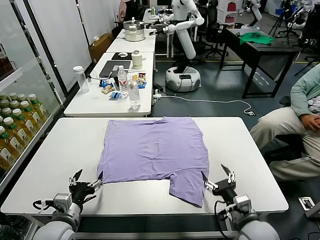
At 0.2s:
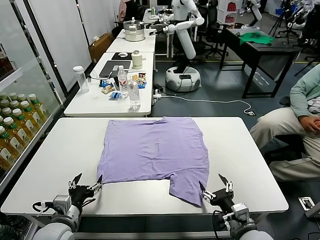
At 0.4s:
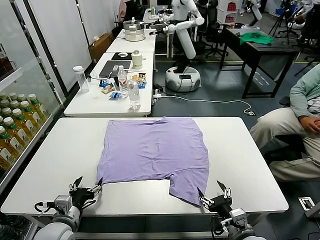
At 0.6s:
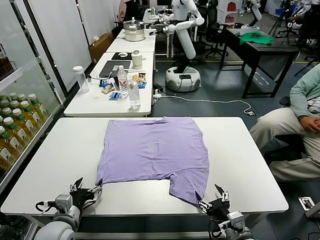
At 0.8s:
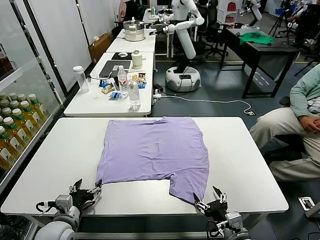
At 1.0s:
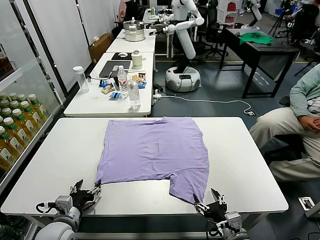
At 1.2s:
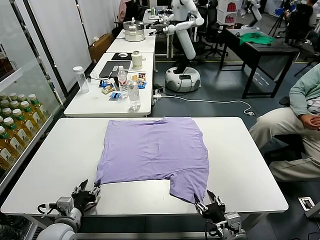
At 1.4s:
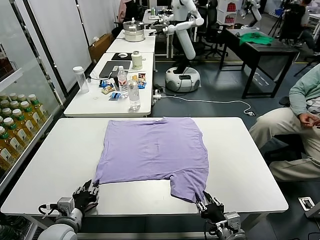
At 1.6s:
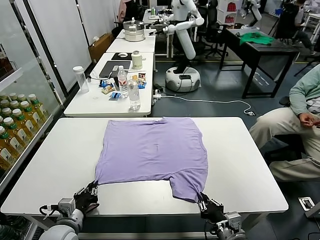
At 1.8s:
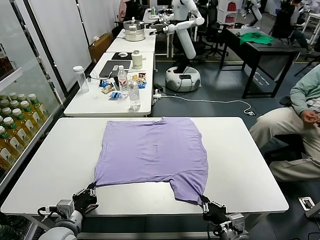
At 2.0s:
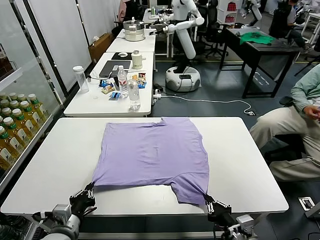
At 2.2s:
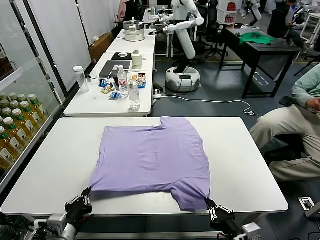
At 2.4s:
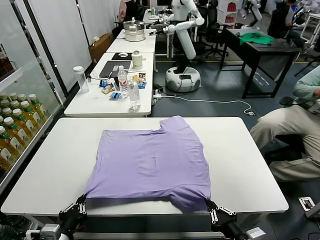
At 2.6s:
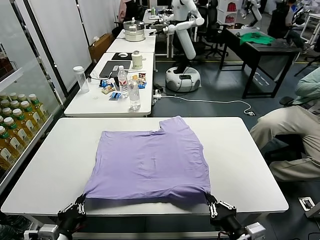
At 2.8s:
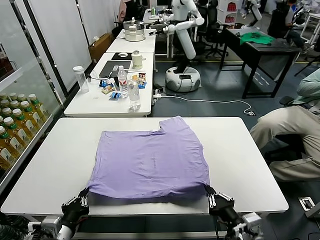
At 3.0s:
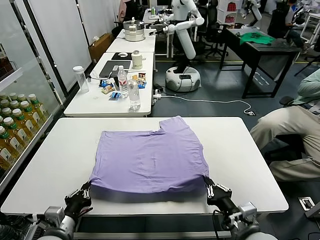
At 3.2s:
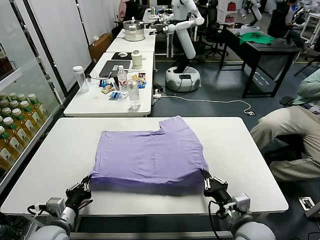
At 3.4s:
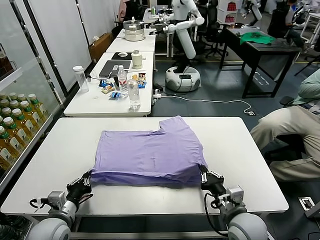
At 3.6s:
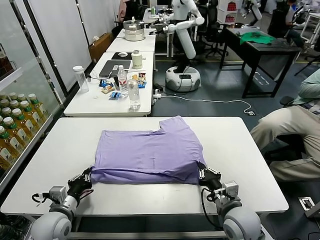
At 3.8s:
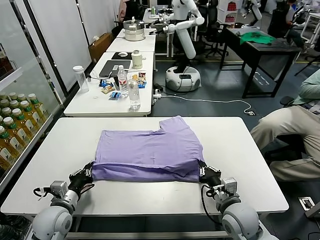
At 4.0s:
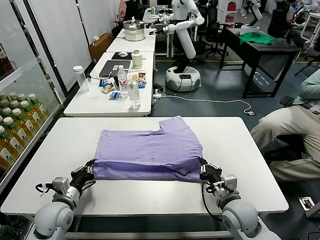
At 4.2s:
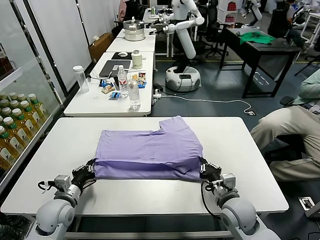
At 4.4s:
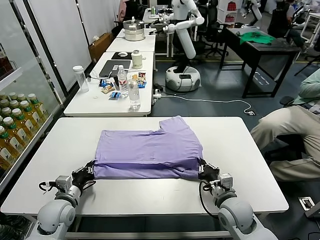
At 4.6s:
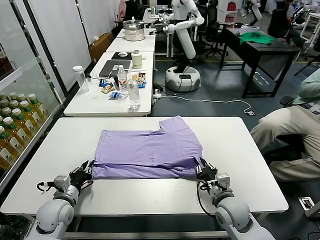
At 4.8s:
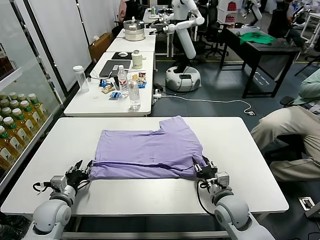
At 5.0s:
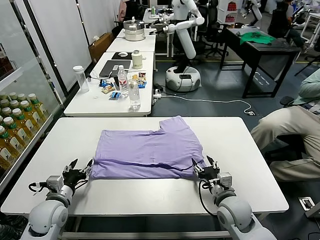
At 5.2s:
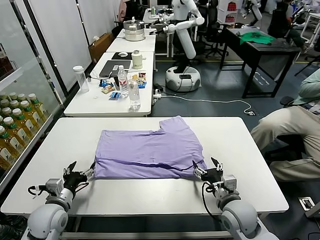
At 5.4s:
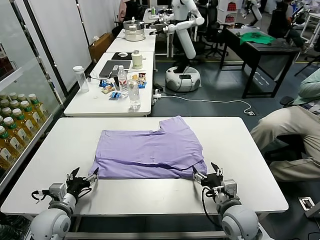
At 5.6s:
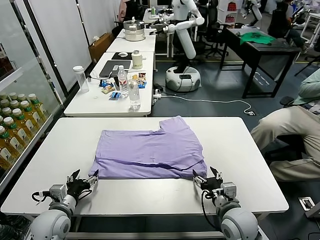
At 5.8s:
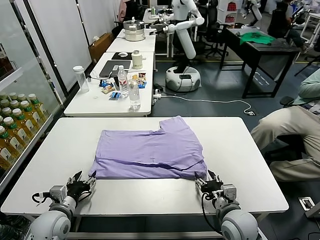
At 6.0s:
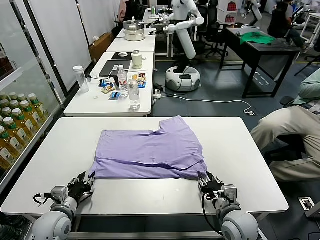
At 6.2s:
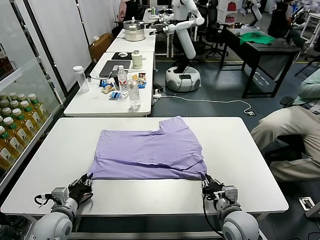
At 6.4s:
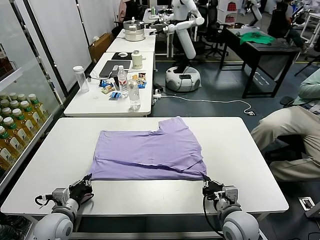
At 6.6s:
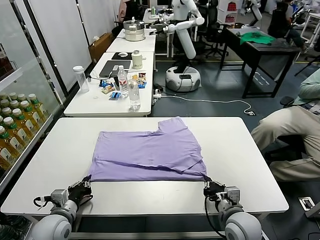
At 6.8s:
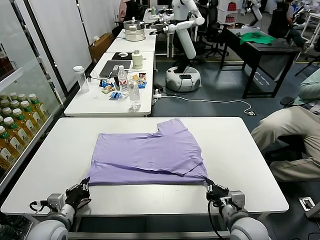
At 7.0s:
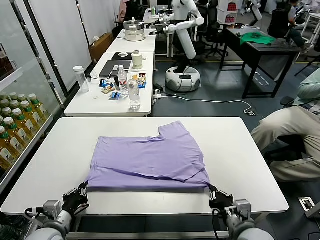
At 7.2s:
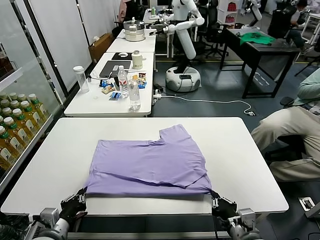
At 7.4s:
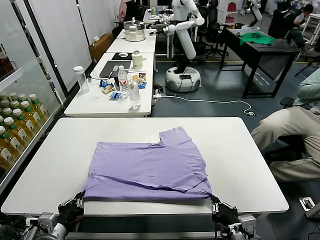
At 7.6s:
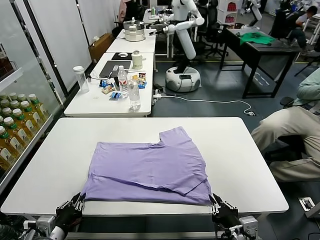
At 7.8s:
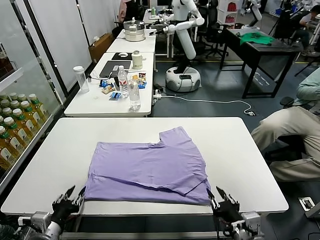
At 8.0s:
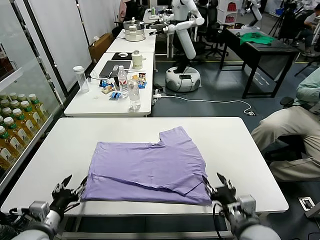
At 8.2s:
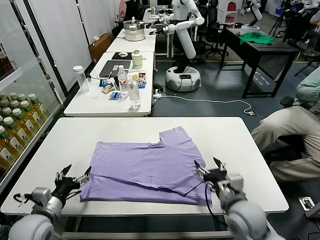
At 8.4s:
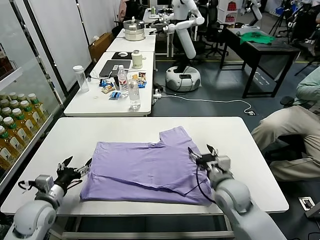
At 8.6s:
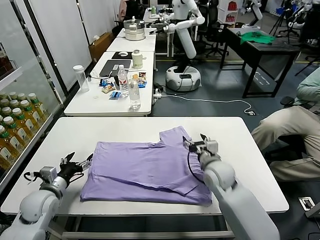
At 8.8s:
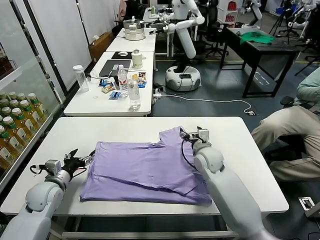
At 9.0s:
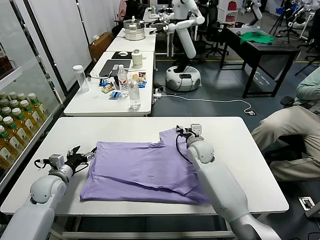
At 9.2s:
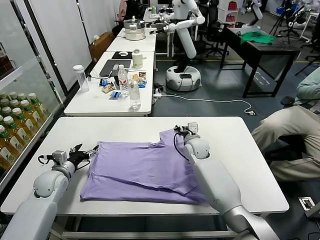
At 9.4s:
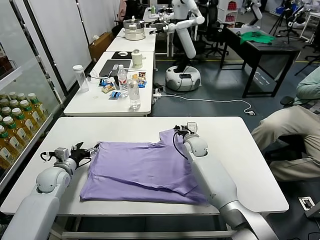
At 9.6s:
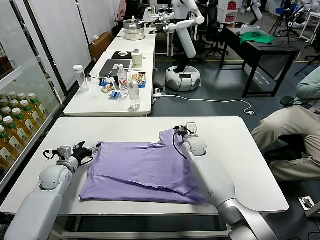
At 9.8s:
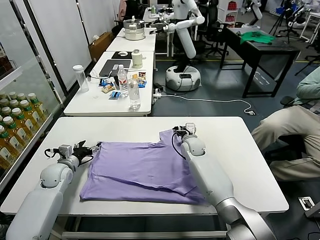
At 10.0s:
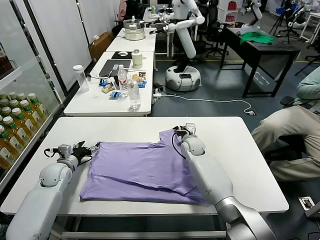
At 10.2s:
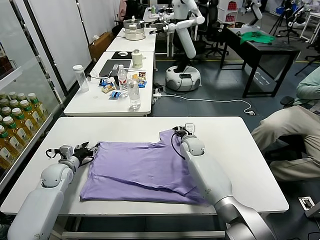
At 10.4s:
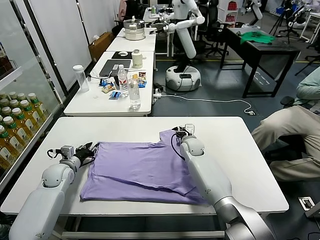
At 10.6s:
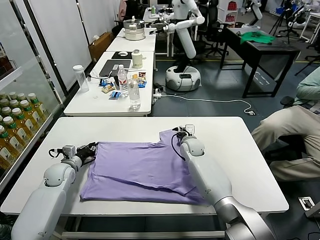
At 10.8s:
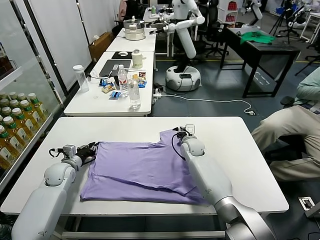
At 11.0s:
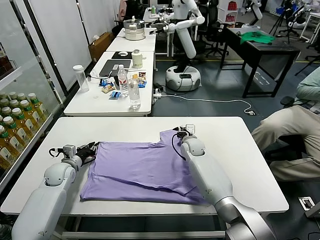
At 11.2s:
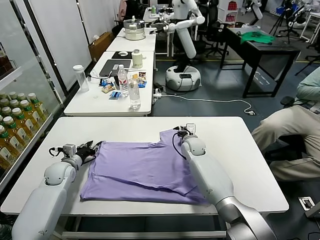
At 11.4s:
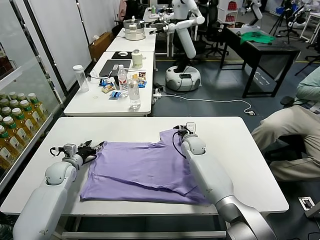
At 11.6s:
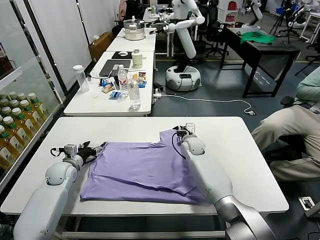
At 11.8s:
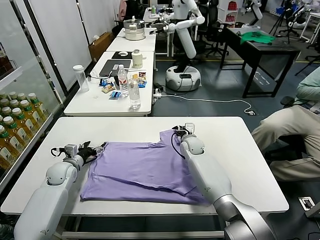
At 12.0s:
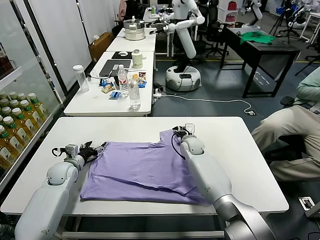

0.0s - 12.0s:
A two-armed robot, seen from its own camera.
Task of the whole recording: fold and organize the clothes.
Step, 0.0s - 1.6s: use both grippers simultaneously to clamp the lower edge of the clothing fabric.
Step, 2.0s - 5.0s: use both grippers to drag the lower edge of the fabric forward and fold it over the upper edge.
Step, 5.2s - 7.8s: Drag the clothes downward with both gripper.
1.6s - 3.0s: The right gripper goes about 5 cm upward, and reaches some 5 cm backward, then returns.
3.0s - 4.4s: Both grippers travel together forward, some 10 cm.
4.4s - 6.0s: The left gripper opens, while the right gripper opens, then closes again.
6.0s - 7.6s: The grippers both shift backward by some 10 cm.
7.6s - 9.0s: The left gripper moves forward, approximately 20 cm, and opens up; the right gripper travels forward by about 35 cm, and opens.
9.0s - 10.4s: The left gripper is displaced forward by some 5 cm, and closes, while the right gripper moves about 5 cm, and closes.
10.4s - 12.0s: The left gripper opens up. The right gripper opens.

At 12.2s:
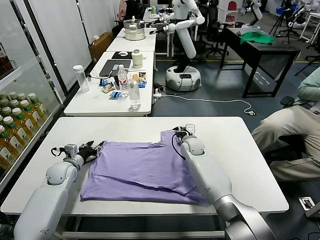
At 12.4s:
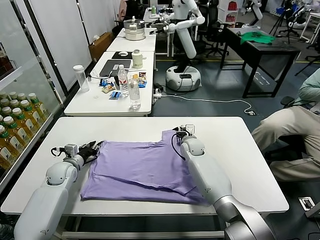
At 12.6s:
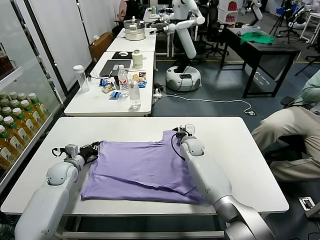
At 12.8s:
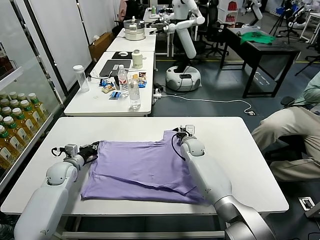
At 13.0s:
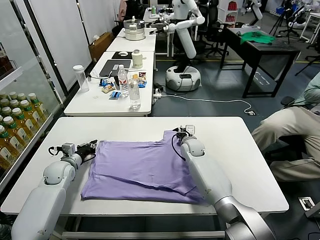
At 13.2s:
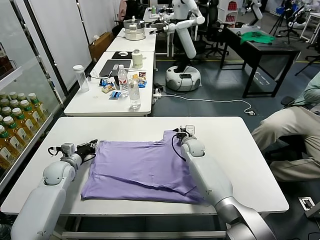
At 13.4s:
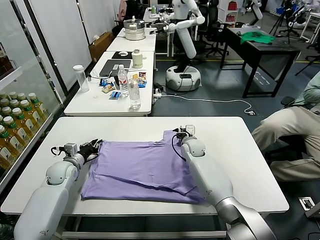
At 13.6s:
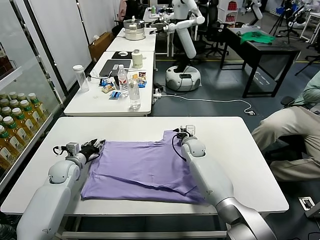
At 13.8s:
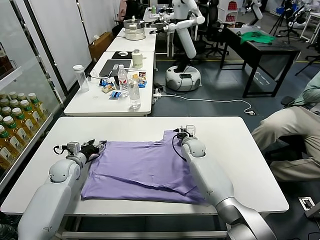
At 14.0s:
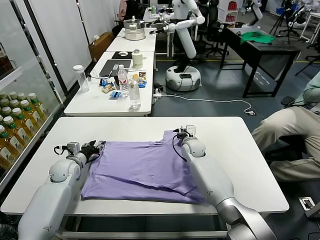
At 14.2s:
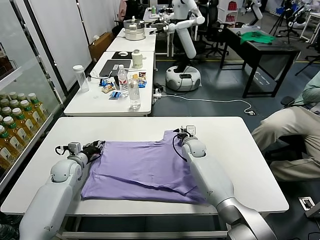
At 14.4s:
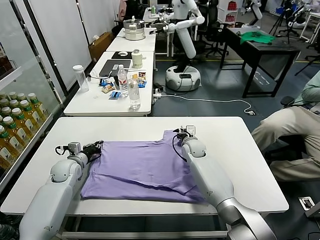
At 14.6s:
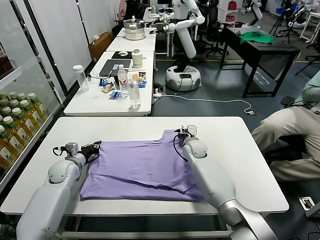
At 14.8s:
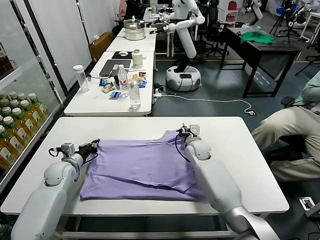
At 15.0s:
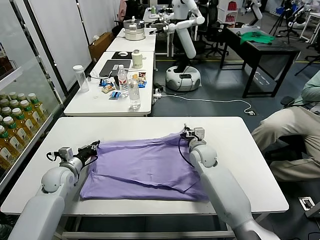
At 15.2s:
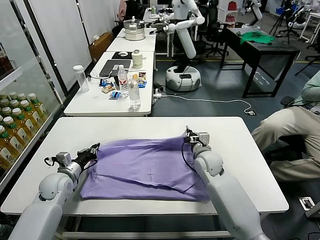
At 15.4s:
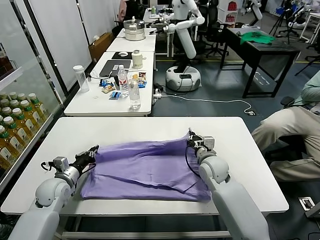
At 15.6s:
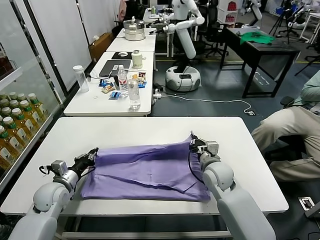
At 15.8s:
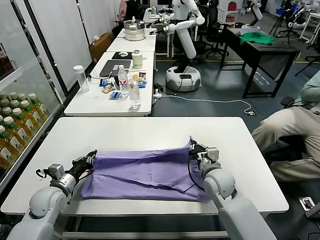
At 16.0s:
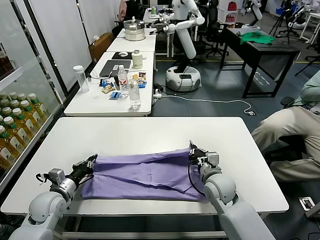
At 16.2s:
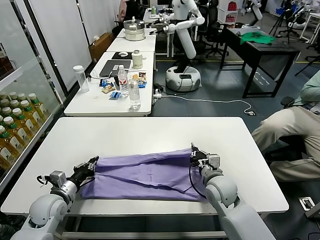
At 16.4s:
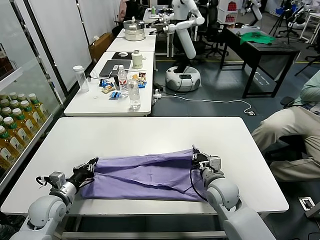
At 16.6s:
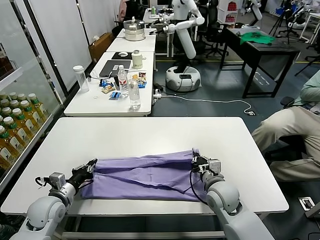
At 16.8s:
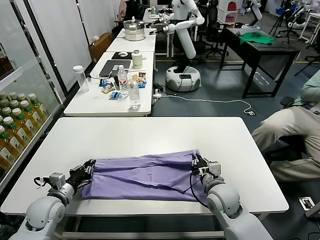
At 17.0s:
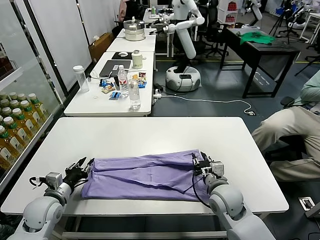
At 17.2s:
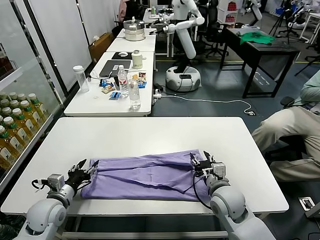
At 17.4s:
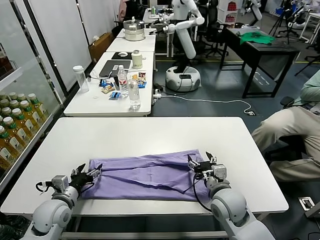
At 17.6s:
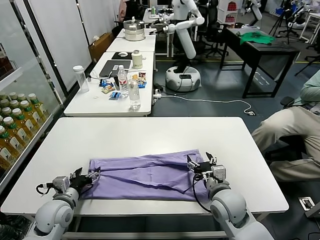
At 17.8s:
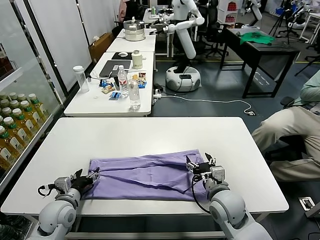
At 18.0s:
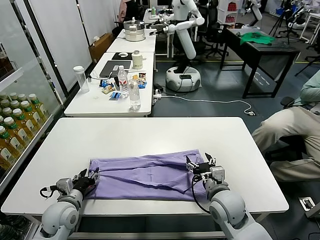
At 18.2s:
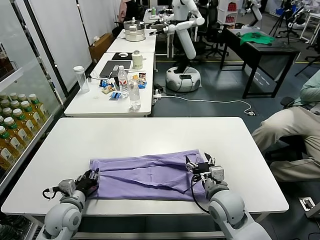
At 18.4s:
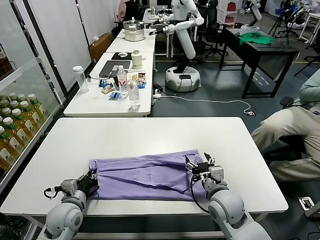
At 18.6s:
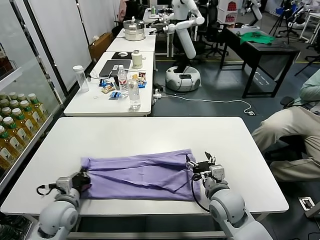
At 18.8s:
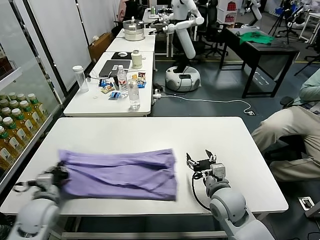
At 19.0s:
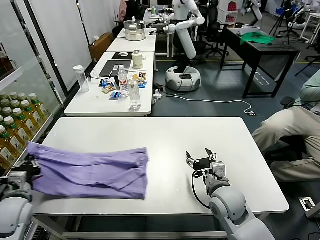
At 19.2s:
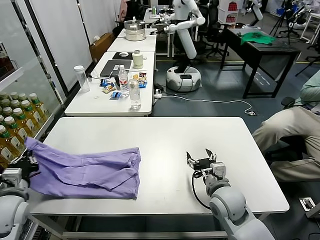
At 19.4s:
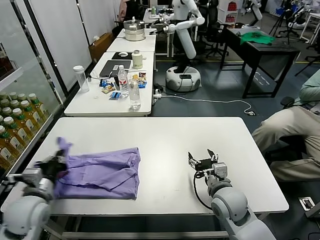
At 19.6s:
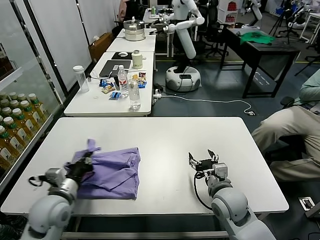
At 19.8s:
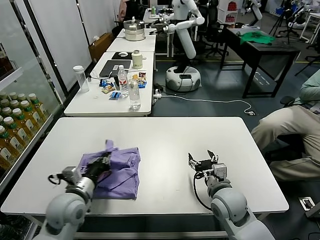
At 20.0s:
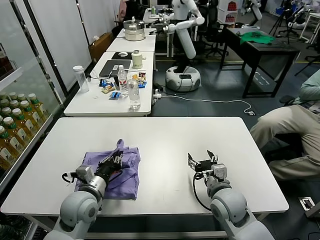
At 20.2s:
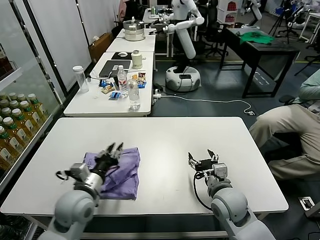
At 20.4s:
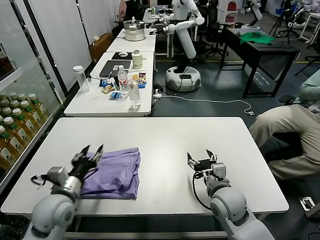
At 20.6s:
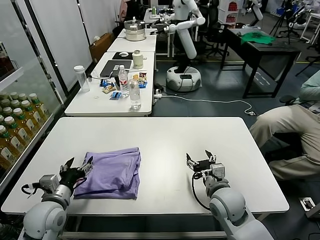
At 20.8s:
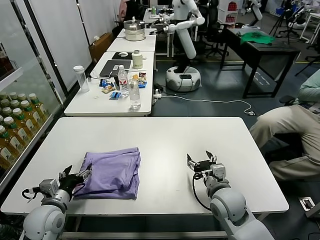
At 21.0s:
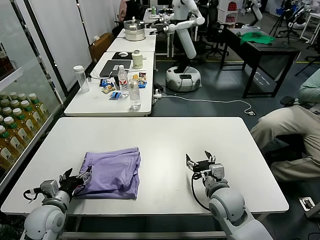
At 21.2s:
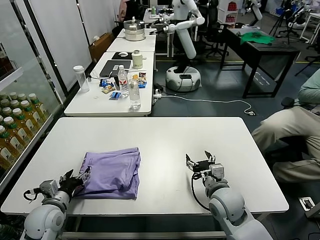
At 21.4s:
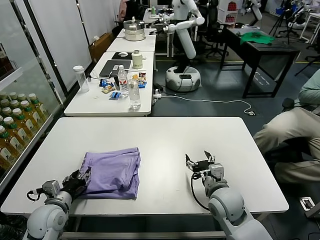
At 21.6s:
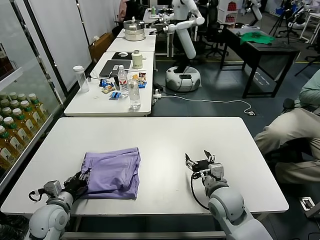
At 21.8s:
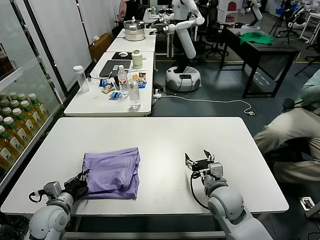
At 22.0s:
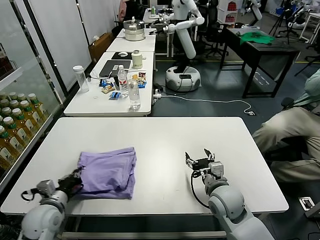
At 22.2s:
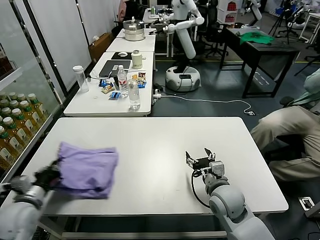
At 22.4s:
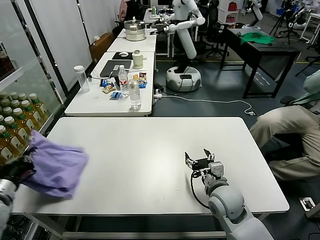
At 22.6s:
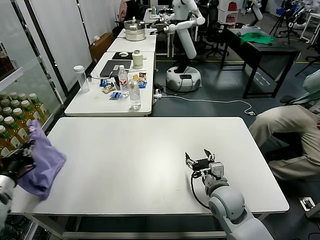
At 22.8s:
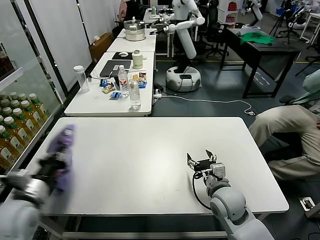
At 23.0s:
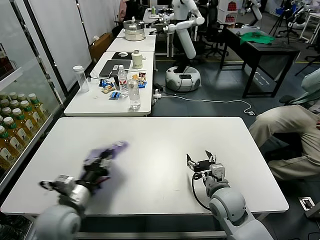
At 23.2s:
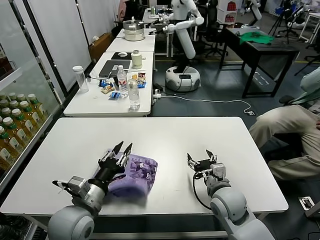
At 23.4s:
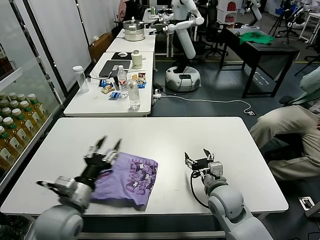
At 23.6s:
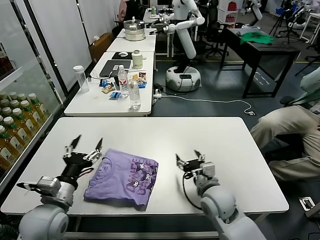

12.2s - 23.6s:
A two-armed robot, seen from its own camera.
Task of the whole recording: fold and organize the clothes.
Step, 12.2s - 14.6s: use both grippers simultaneously to clamp the upper edge of the clothing fabric.
Step, 14.8s - 17.4s: use both grippers to drag the upper edge of the fabric backward and fold it over the lower edge.
Step, 17.6s - 18.4s: use the left gripper to clamp the left edge of the fabric.
Step, 18.6s - 20.0s: use the left gripper to drag the left edge of the fabric to the left and folds it over the right edge.
Step, 20.4s - 23.6s: Flip the folded clothes over with left gripper.
12.2s - 13.6s: The left gripper closes and opens again; the right gripper closes.
13.6s - 15.0s: The right gripper goes about 5 cm backward, while the left gripper closes.
15.0s - 16.4s: Both grippers move backward, some 15 cm.
16.4s - 17.8s: The left gripper opens up; the right gripper opens up.
17.8s - 19.4s: The left gripper travels upward by approximately 10 cm, and closes.
19.4s - 20.8s: The left gripper heads downward, covering approximately 5 cm, goes to the right and returns, roughly 15 cm each way, and opens up.
20.8s - 22.2s: The left gripper moves roughly 5 cm, and closes its fingers.
22.2s - 23.6s: The left gripper moves left and right over about 20 cm, changing direction 2 times, and opens its fingers.
